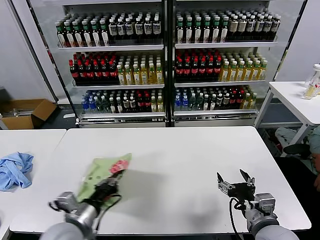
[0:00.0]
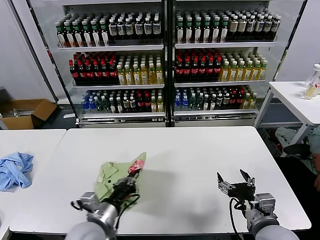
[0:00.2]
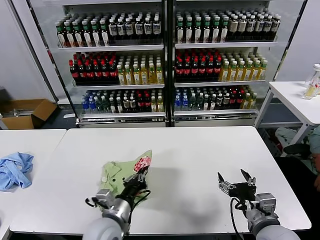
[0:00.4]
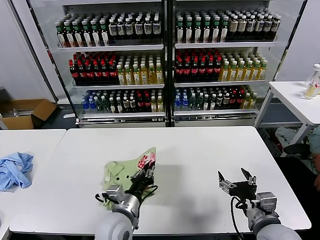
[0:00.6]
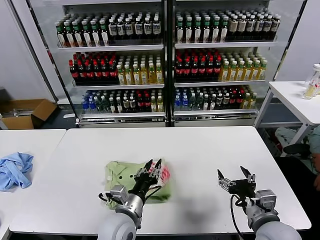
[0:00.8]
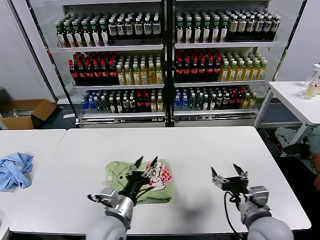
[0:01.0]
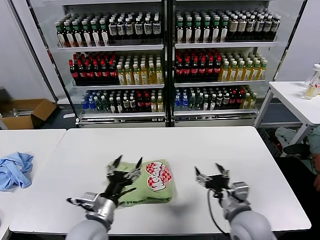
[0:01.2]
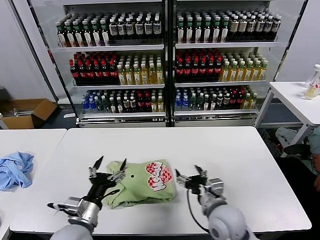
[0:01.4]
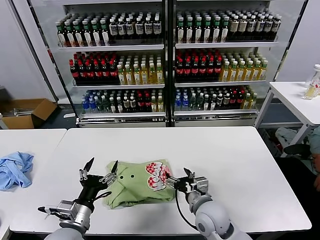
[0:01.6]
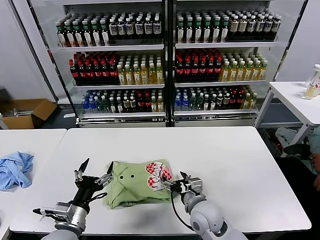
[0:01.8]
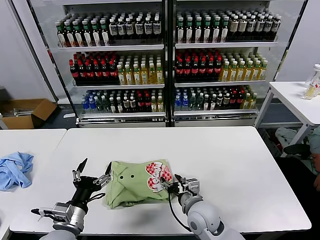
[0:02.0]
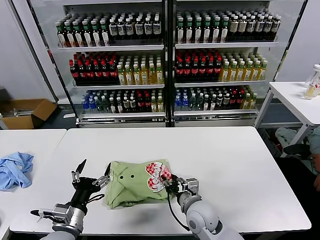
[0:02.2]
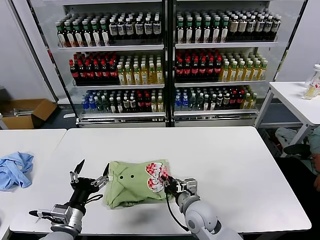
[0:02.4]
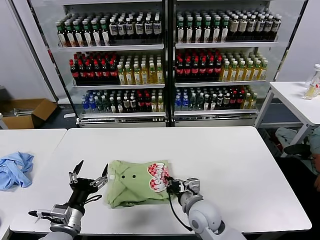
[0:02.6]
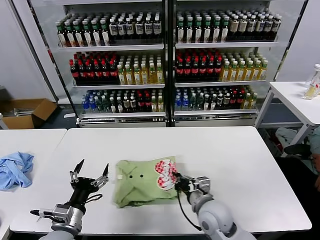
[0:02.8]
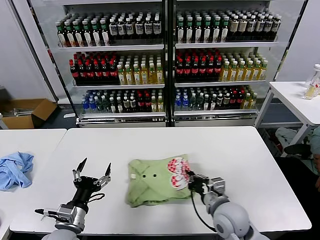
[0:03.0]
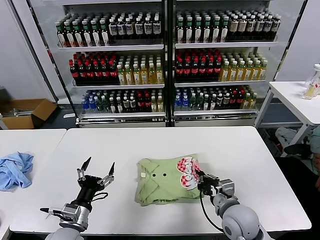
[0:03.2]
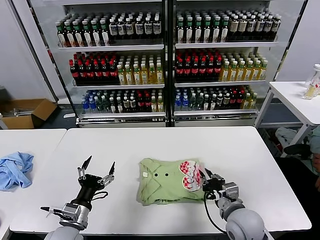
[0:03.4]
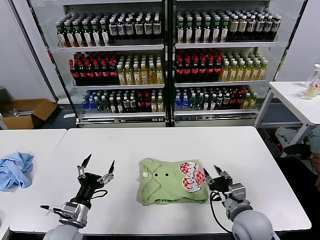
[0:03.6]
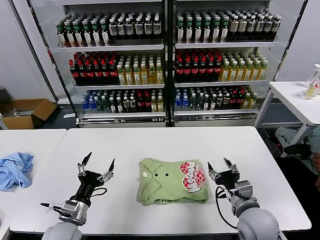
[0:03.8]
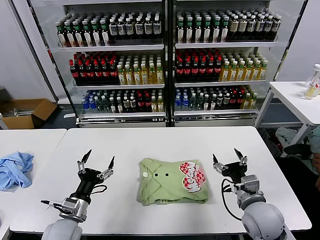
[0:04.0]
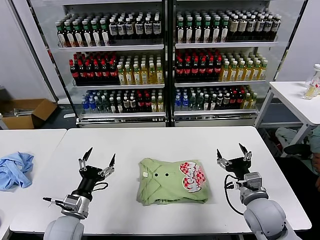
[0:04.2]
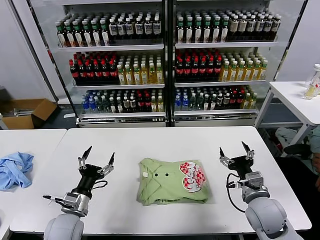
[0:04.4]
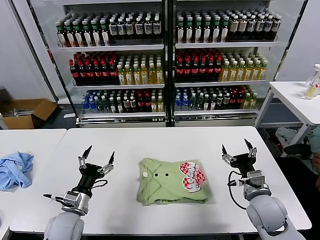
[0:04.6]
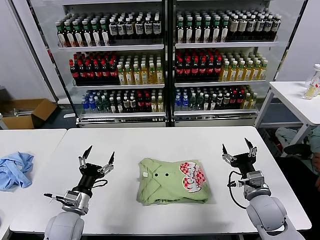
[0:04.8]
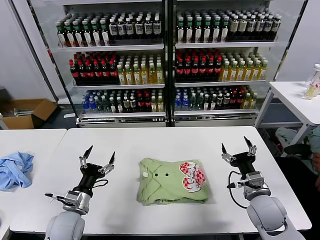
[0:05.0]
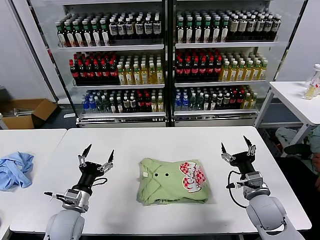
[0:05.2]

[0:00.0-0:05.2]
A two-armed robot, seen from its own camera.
Task of the whole recording: fold and organize the clothes.
Step, 0:01.0 to 0:03.6: Drag the clothes to the center of the table.
0:00.0 to 0:01.8: The right gripper moves to the left, forward and downward, about 20 cm; the left gripper travels to the right and back again, approximately 15 cm each way, and opens its fingers.
0:01.8 to 0:03.4: The right gripper heads to the right, covering approximately 10 cm, and closes its fingers.
0:03.4 to 0:05.2: The right gripper goes approximately 10 cm to the right, and opens; the left gripper goes roughly 5 cm forward.
